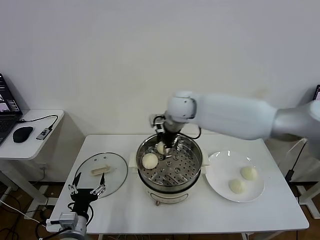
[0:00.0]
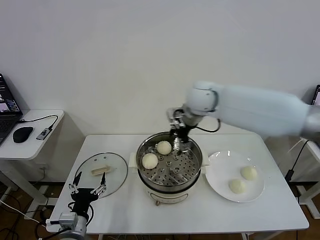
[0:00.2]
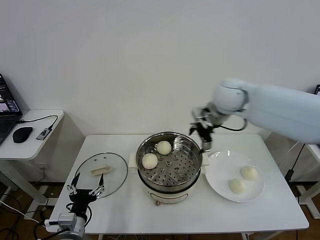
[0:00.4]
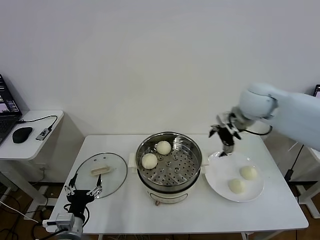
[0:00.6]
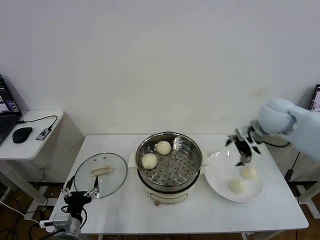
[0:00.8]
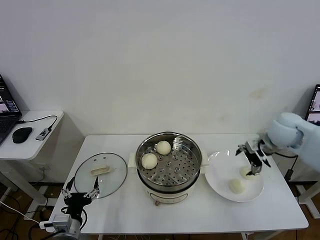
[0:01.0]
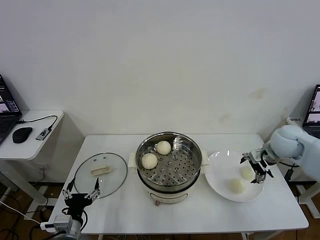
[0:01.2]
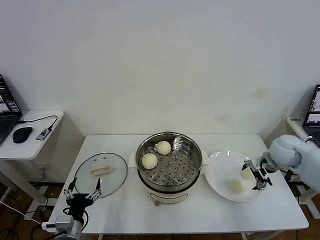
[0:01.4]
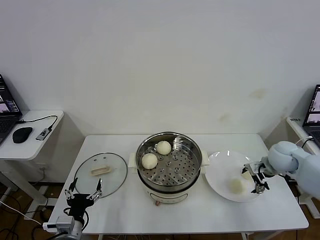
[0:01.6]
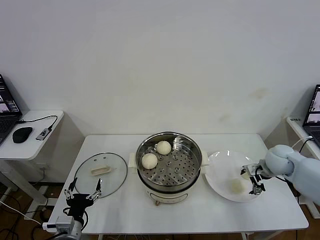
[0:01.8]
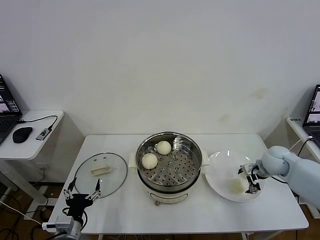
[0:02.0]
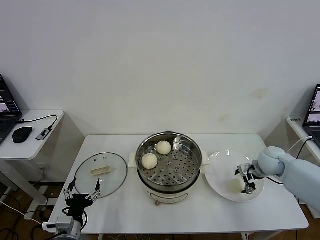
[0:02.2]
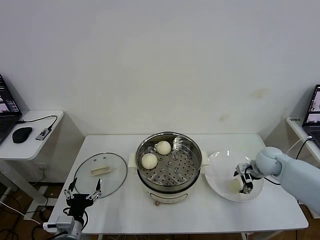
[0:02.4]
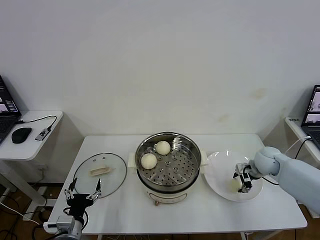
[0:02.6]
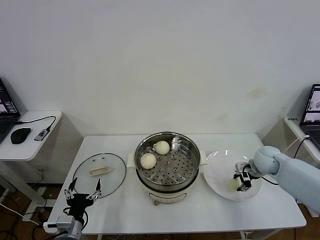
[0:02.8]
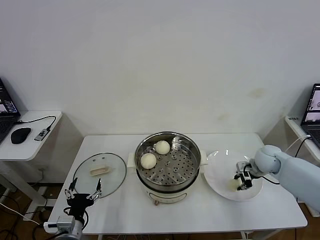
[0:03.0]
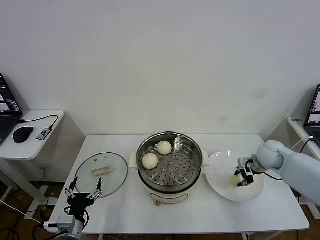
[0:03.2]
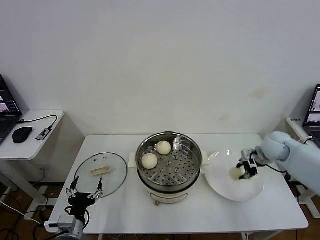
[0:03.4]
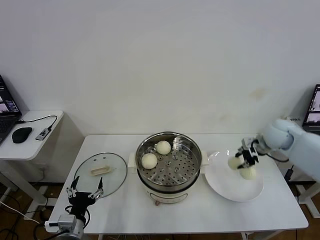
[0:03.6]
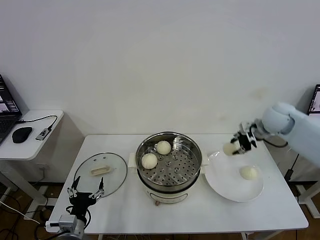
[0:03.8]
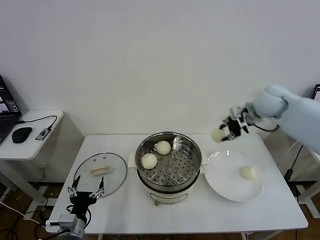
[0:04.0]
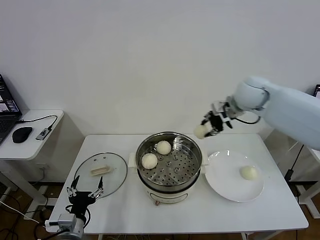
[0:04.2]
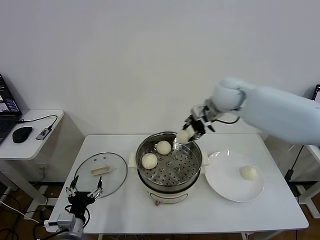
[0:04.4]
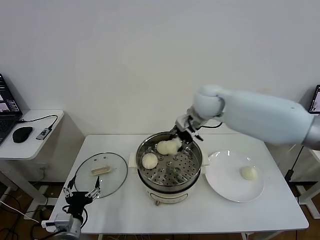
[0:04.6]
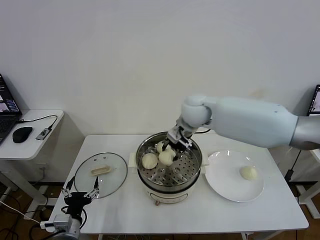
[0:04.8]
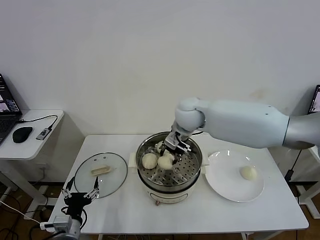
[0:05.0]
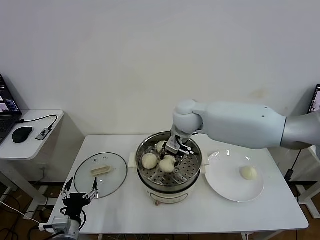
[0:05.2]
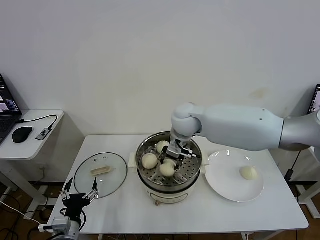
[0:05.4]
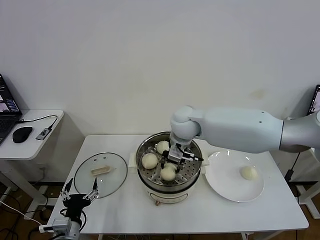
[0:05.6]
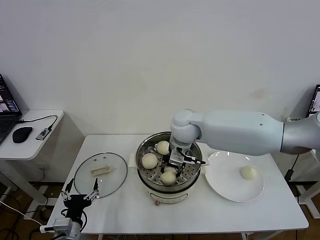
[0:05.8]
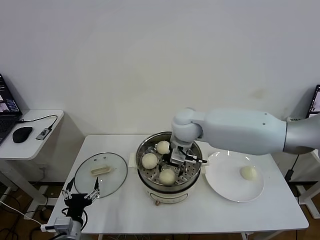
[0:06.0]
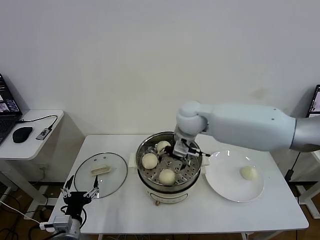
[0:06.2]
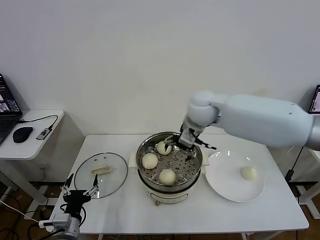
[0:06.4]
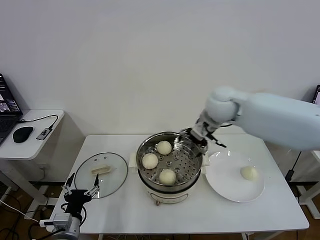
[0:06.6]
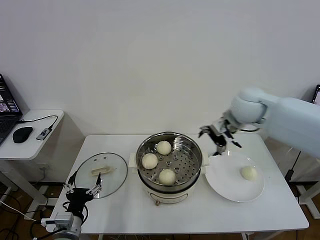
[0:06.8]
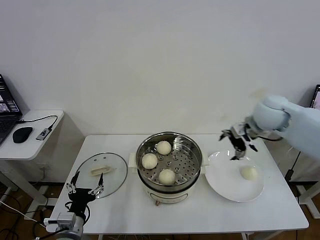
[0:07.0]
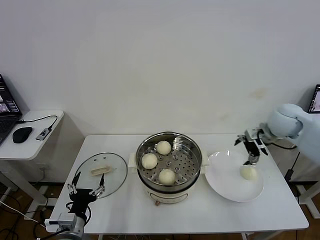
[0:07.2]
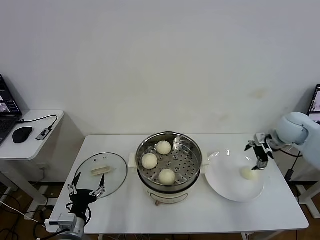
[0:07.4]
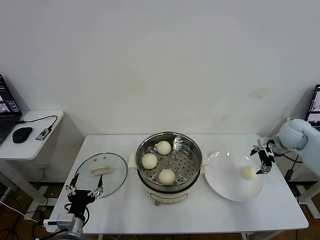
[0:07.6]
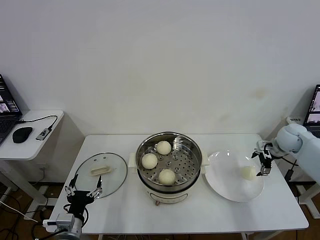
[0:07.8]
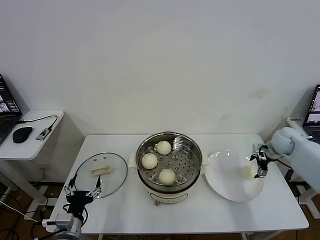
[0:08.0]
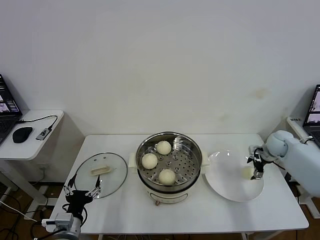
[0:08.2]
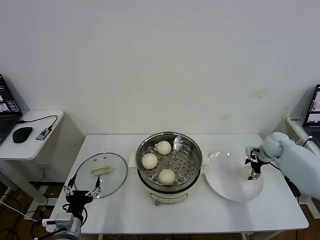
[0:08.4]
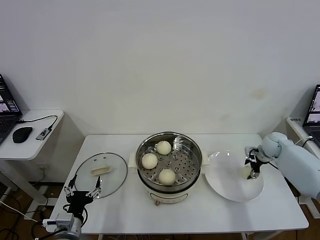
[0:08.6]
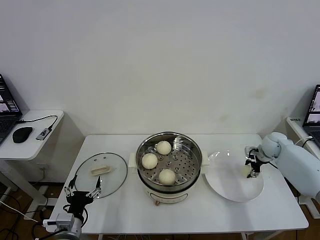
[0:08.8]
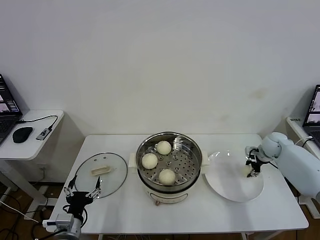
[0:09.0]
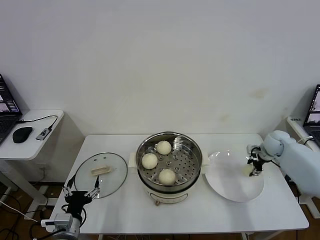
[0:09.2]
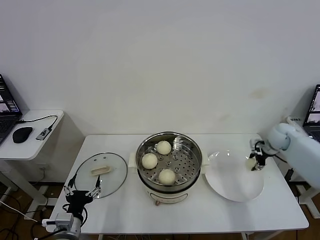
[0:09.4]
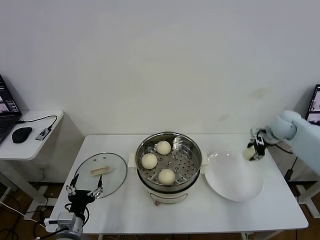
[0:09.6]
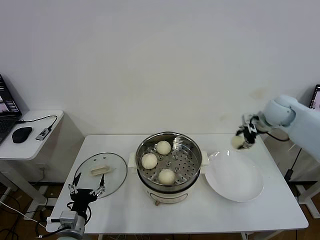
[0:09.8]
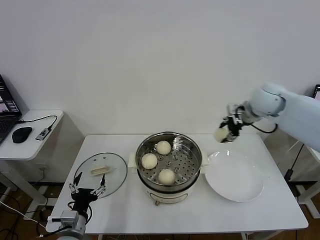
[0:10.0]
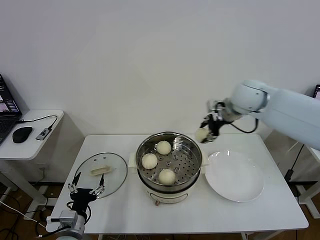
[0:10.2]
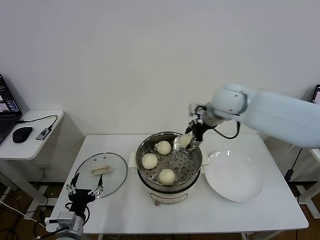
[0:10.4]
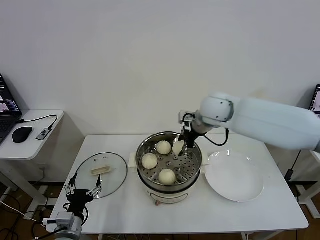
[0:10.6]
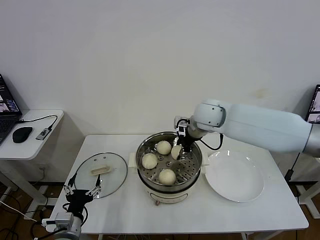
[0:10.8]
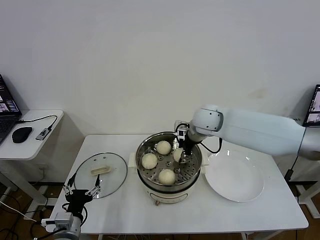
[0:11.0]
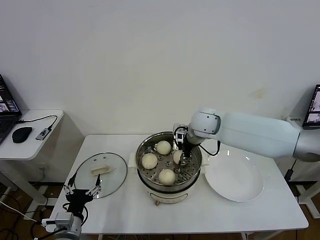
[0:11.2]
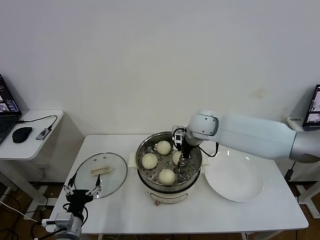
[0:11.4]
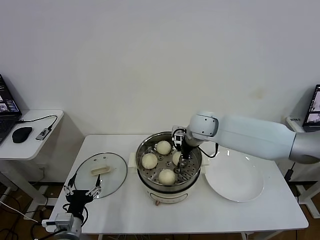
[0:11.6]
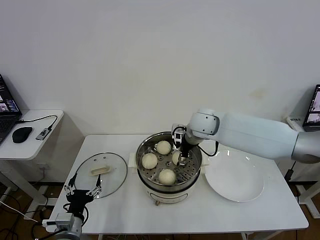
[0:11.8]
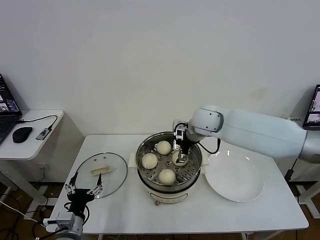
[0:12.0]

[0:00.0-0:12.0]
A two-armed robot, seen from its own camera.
Task of the whole recording: take steamed baozi put them in steamer then cover it.
Step, 0:00.0 to 0:03.0: Grasp the baozi in the plate with right gripper.
Step, 0:03.2 to 0:06.0: Place the baozi on the steamer with right gripper.
Step, 0:06.2 to 0:09.2: Grasp the baozi in the plate with right gripper.
Step, 0:09.4 to 0:12.0: Place the baozi on the steamer with right gripper.
0:00.0 to 0:01.6: The right gripper goes some 35 cm to the right and downward.
0:01.6 to 0:03.0: The right gripper closes up.
0:03.0 to 0:04.4: The right gripper heads upward and to the left, covering approximately 30 cm.
0:04.4 to 0:06.0: The right gripper is displaced to the left and downward by some 10 cm, and opens.
0:06.0 to 0:07.6: The right gripper shifts some 40 cm to the right.
0:07.6 to 0:09.0: The right gripper goes about 10 cm downward, and closes.
0:09.0 to 0:10.4: The right gripper shifts about 35 cm to the left and upward.
0:10.4 to 0:12.0: The right gripper travels downward by roughly 5 cm, and opens.

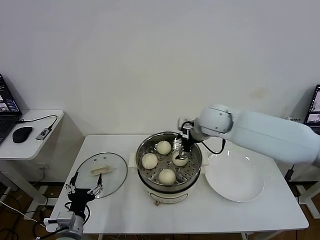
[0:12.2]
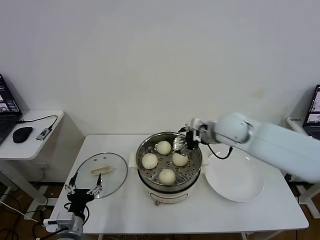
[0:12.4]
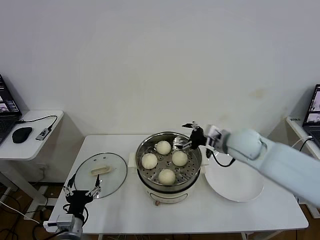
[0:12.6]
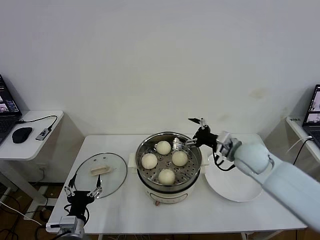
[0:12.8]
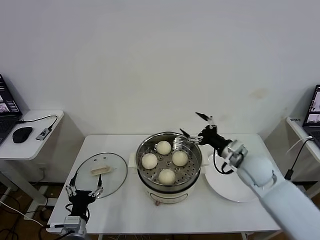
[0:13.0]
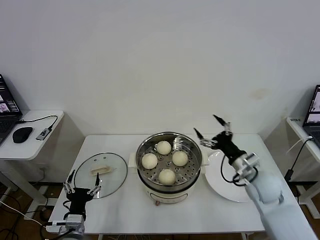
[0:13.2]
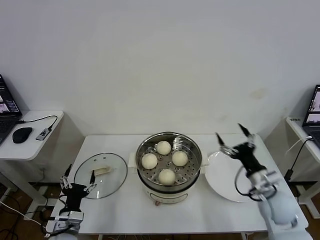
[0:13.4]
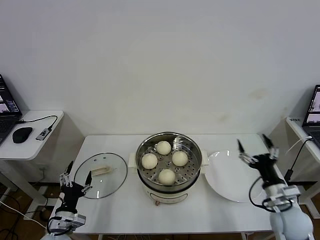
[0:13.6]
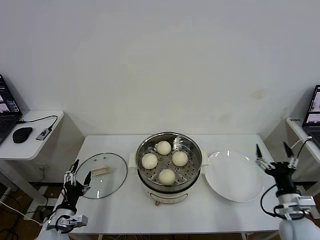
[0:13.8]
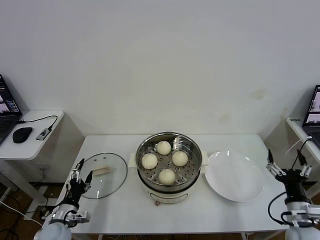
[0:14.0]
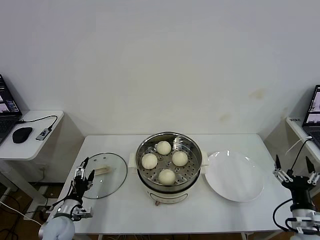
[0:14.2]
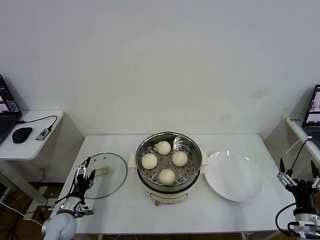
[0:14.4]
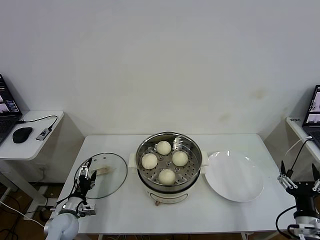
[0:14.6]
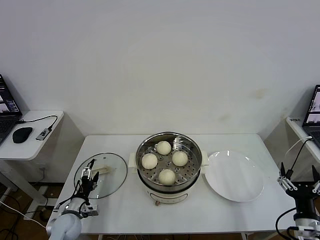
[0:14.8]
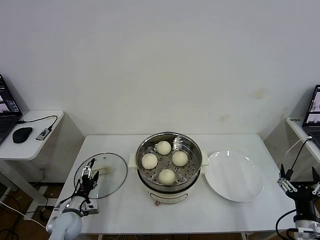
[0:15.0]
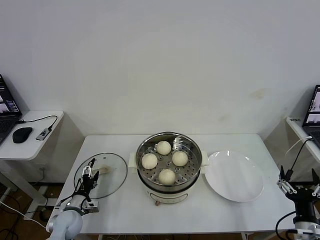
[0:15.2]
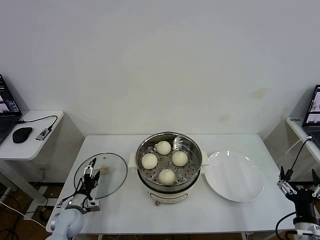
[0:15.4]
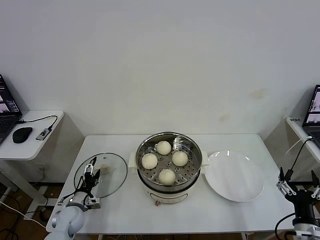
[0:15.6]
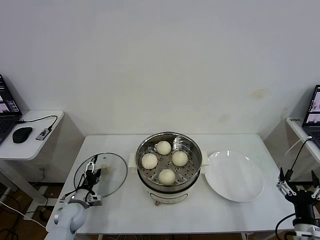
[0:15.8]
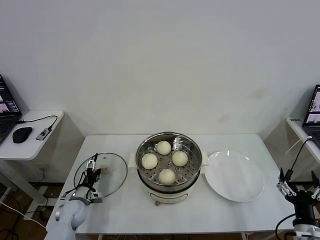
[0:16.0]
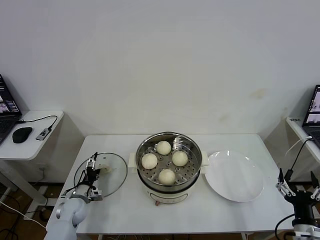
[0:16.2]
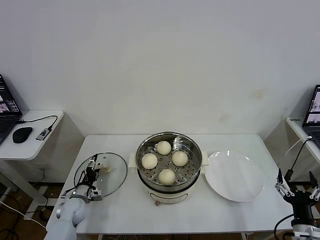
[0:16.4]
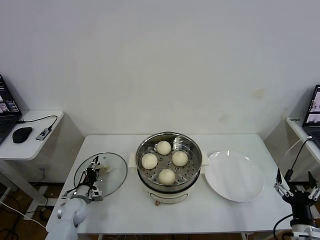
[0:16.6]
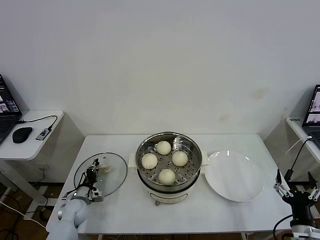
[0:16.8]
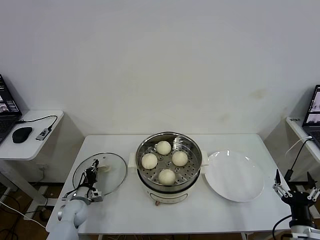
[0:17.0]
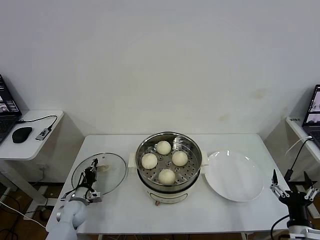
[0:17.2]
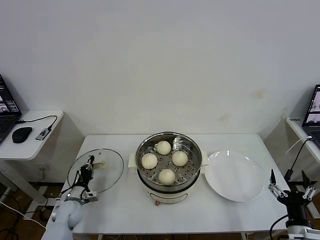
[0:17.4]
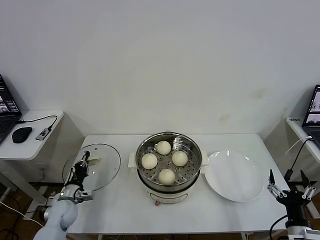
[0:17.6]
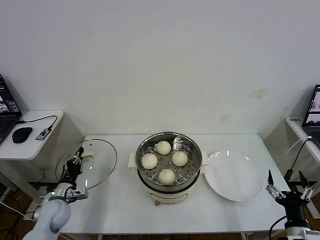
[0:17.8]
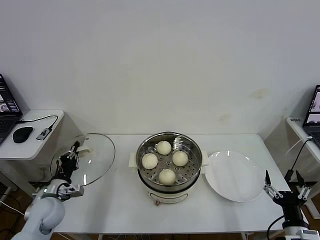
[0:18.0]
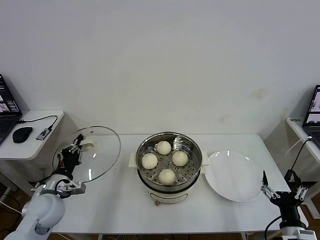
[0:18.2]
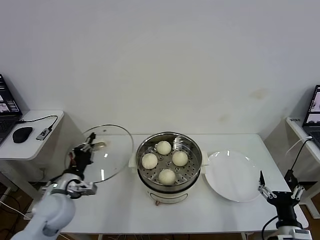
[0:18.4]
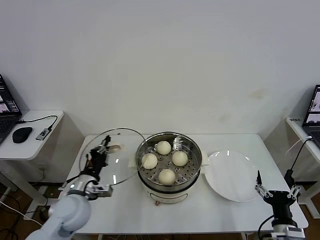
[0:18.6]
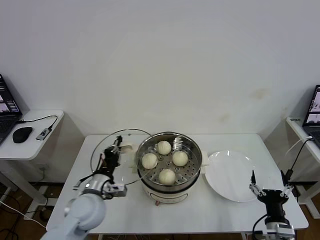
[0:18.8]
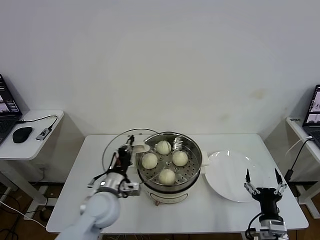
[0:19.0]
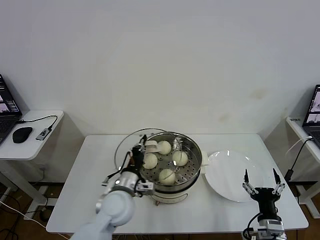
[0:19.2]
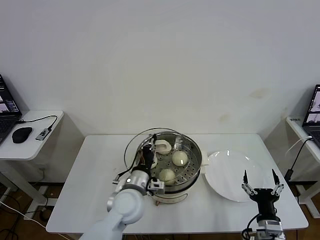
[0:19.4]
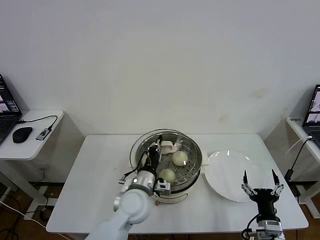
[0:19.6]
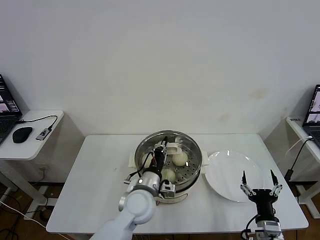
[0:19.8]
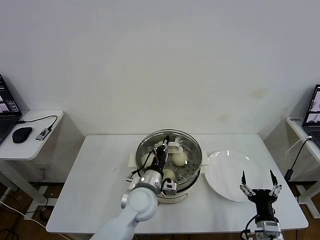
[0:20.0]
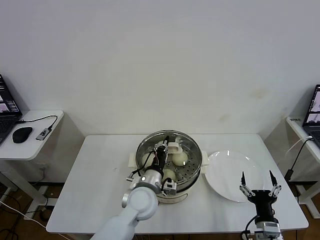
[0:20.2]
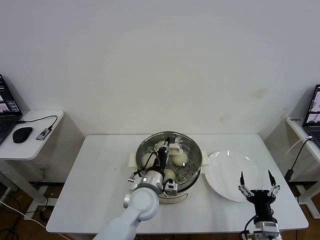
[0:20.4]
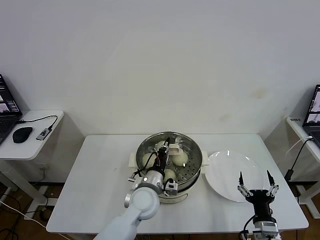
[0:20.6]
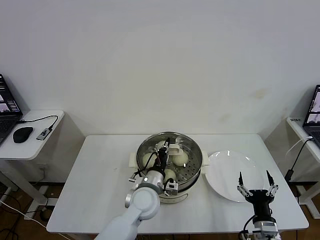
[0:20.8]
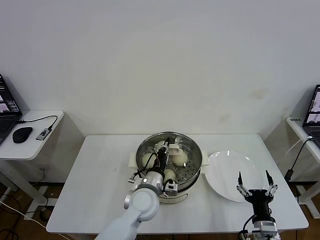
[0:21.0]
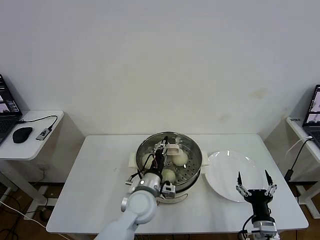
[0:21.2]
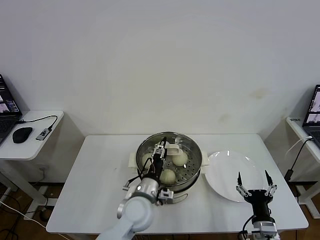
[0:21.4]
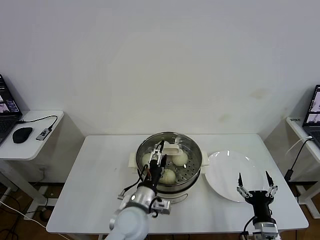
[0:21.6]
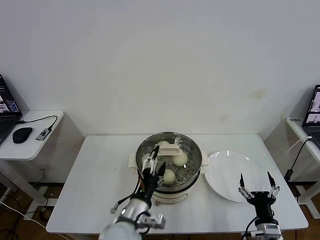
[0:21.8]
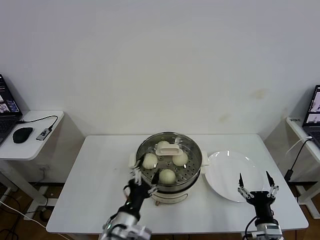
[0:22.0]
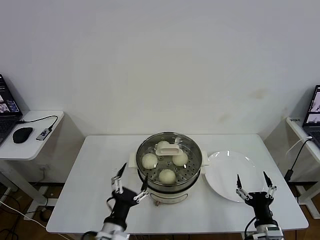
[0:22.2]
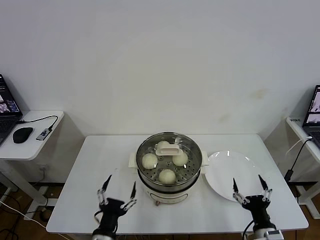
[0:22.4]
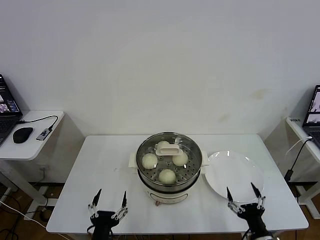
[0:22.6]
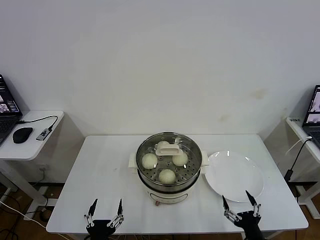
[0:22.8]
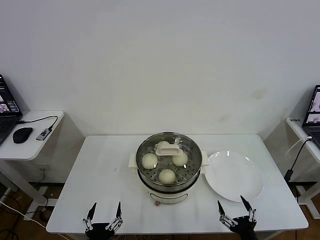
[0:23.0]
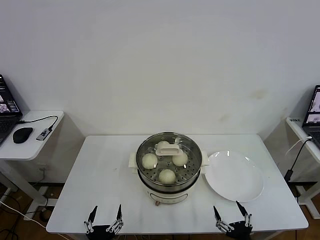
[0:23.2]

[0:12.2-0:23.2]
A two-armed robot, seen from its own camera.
Task of the whole recording: take steamed baozi put them in steamer then cover it.
Step, 0:12.2 to 0:17.2: Grasp the pot lid with left gripper.
Step, 0:17.4 to 0:21.8: Place the pot lid on the steamer with left gripper.
0:12.2 to 0:13.8: The right gripper shifts about 40 cm backward, to the right and downward. The left gripper moves to the left, roughly 5 cm.
0:13.8 to 0:15.4: The right gripper is displaced backward by about 10 cm; the left gripper moves forward and downward, approximately 10 cm.
0:15.4 to 0:17.0: The left gripper changes place by about 5 cm, and closes up.
0:17.0 to 0:18.4: The left gripper heads upward, covering about 20 cm.
0:18.4 to 0:20.0: The right gripper moves about 5 cm, while the left gripper is displaced to the right by roughly 25 cm.
0:20.0 to 0:21.6: The left gripper opens its fingers.
0:21.6 to 0:23.2: The left gripper is displaced backward and to the left by about 25 cm; the right gripper shifts roughly 10 cm backward.
